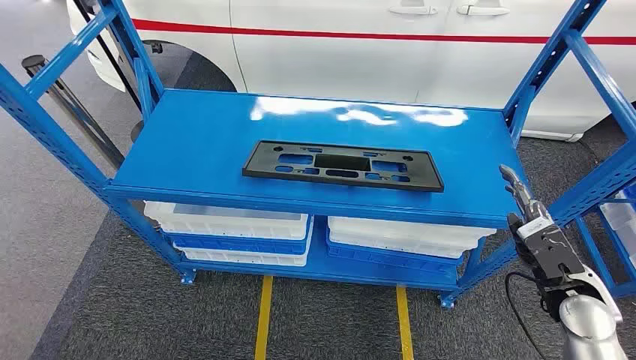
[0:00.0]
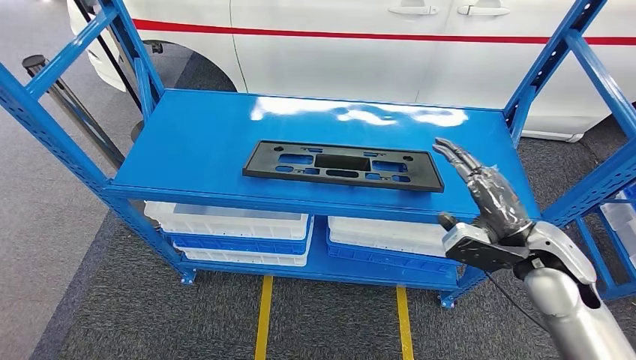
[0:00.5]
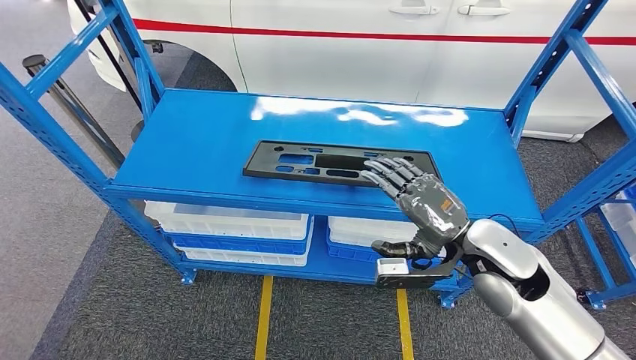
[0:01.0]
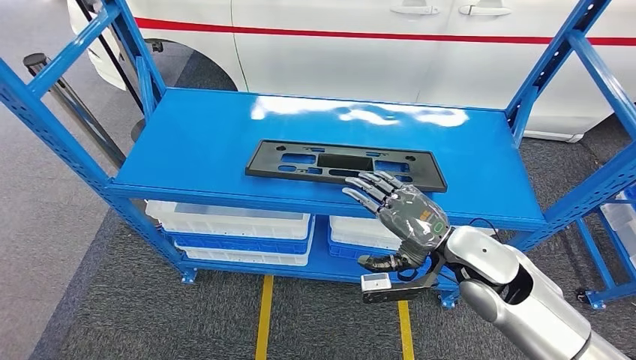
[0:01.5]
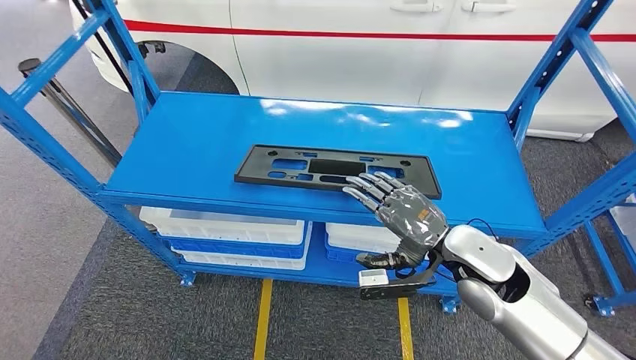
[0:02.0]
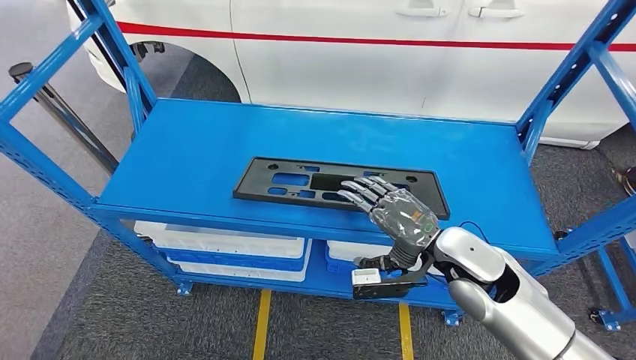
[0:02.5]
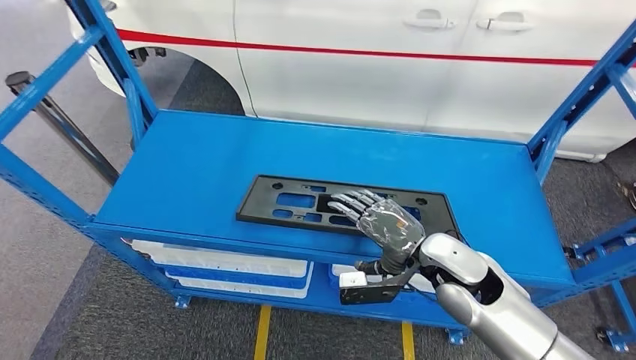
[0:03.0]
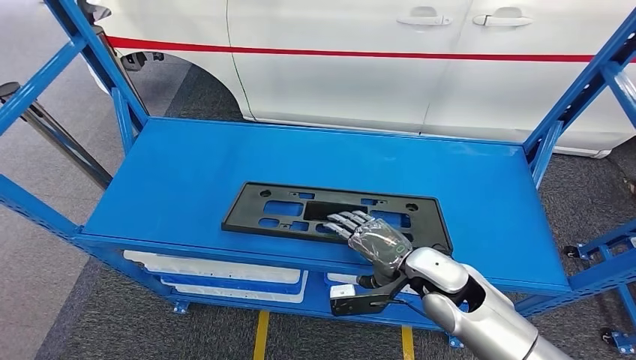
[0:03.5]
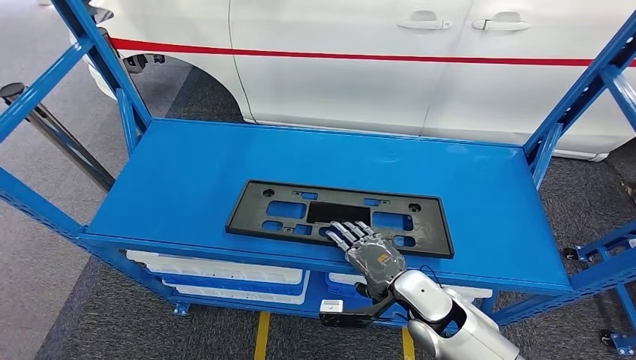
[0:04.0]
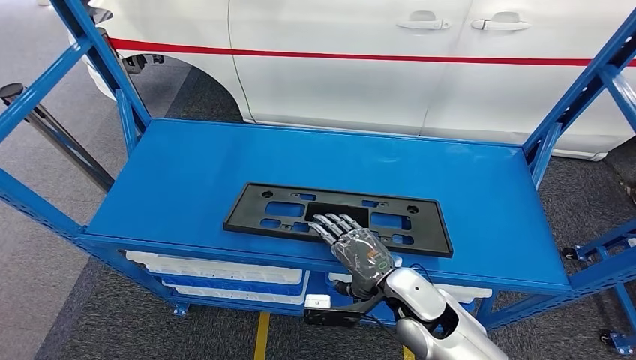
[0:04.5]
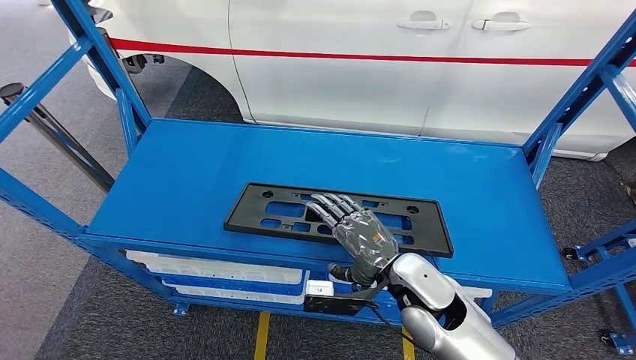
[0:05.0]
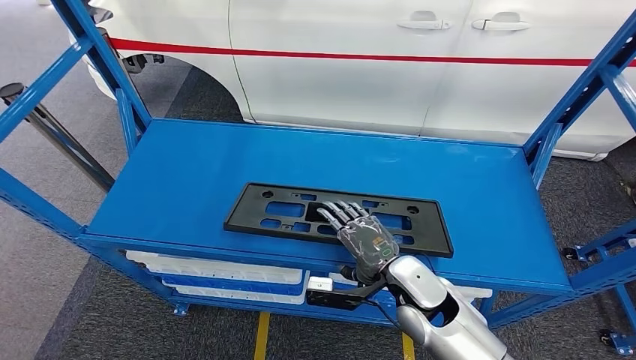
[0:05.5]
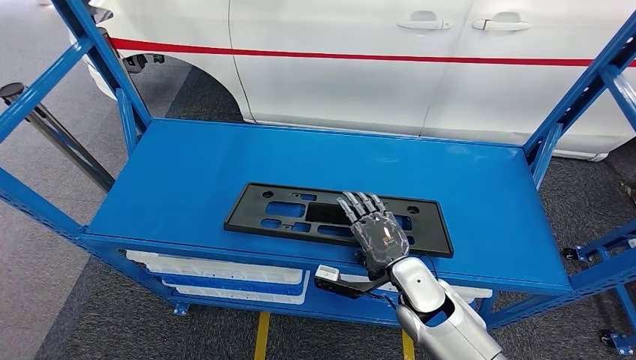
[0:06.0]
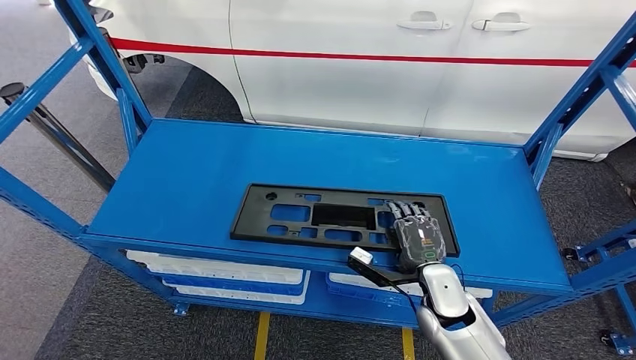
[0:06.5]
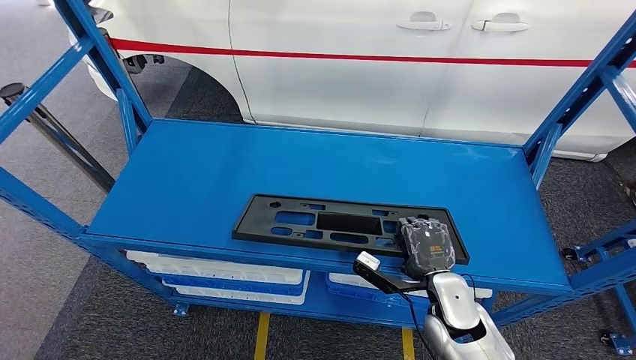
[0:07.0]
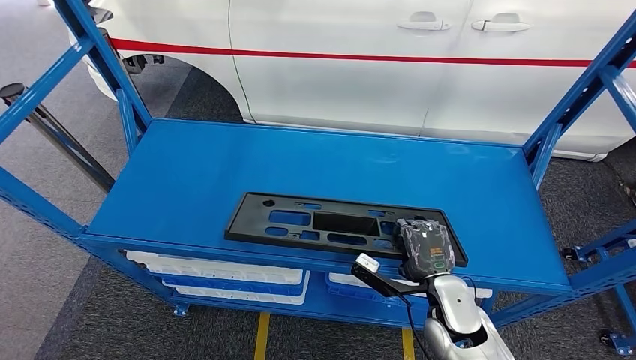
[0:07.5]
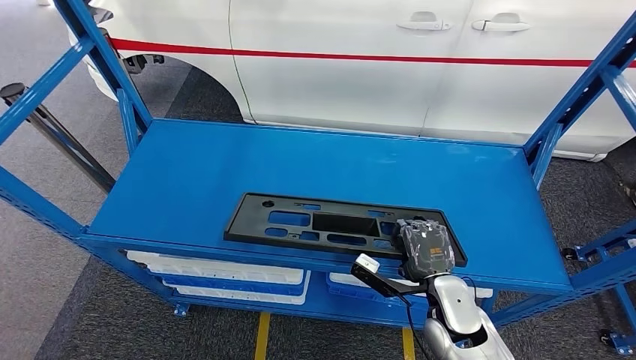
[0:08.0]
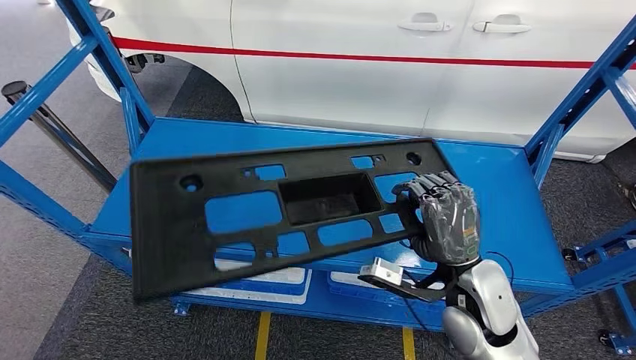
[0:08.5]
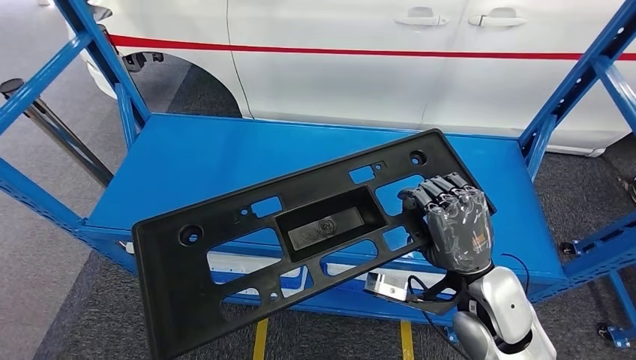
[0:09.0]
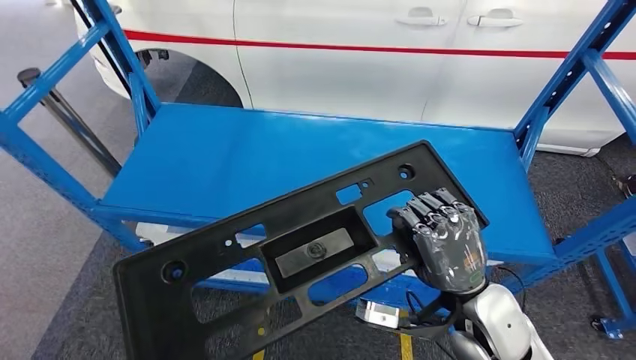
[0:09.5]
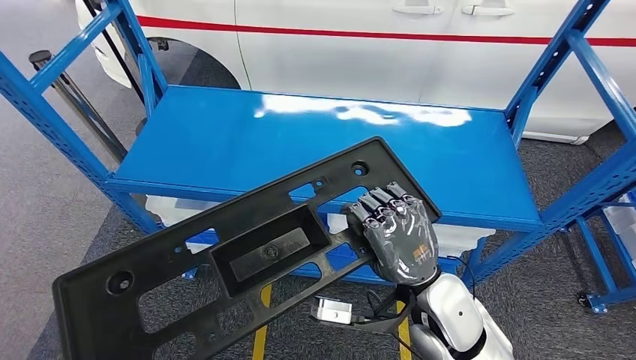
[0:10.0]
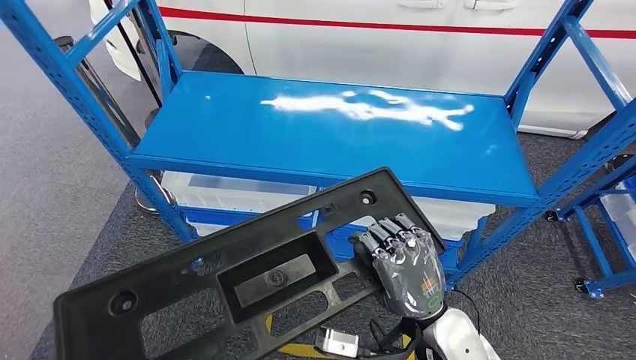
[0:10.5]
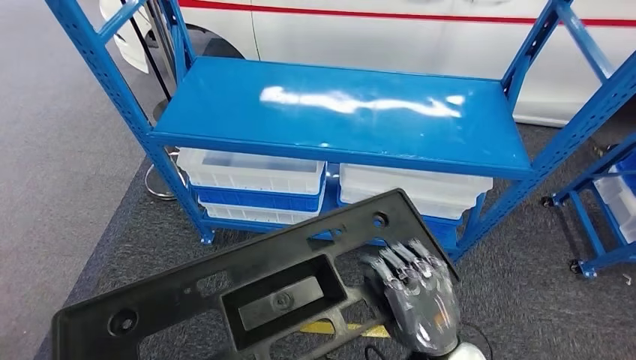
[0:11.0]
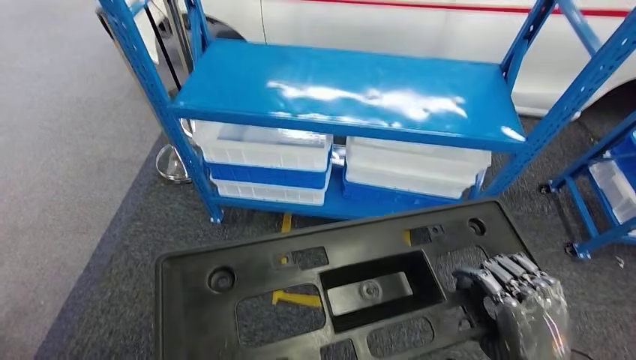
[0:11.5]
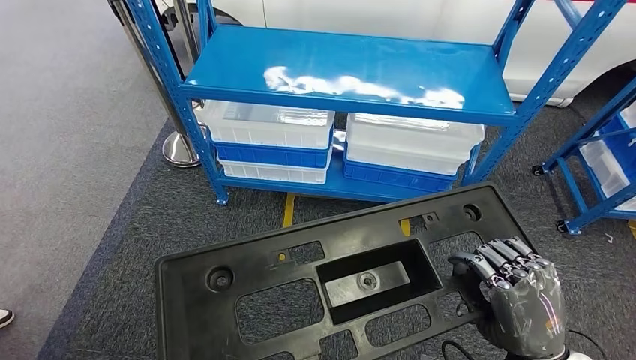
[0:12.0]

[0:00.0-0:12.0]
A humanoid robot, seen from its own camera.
Step, 0:00.0 to 0:08.5: Pick up the large material from the shelf.
0:06.0 to 0:08.0: The right hand shifts by roughly 5 cm.

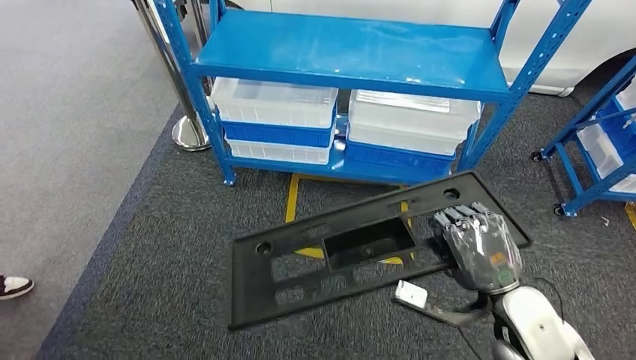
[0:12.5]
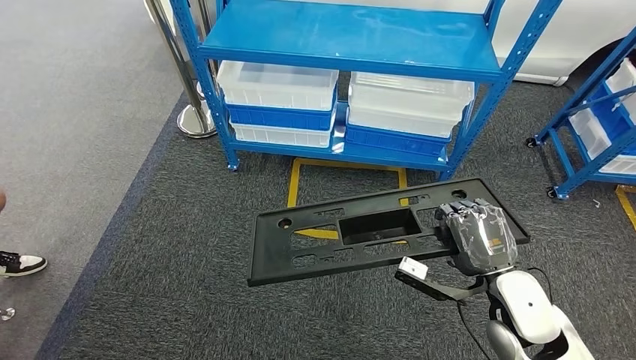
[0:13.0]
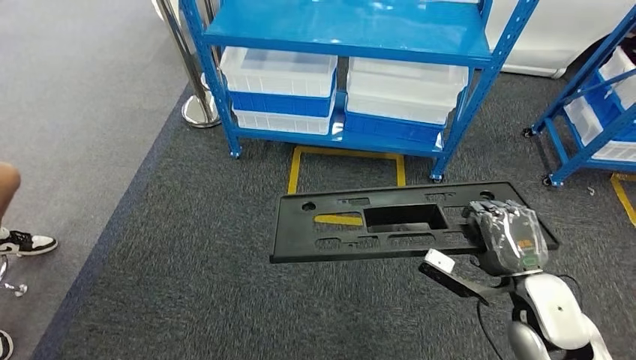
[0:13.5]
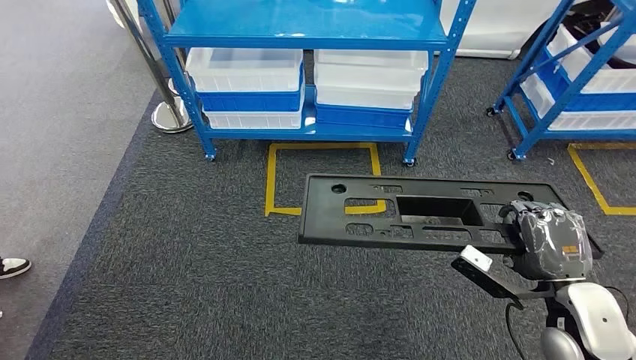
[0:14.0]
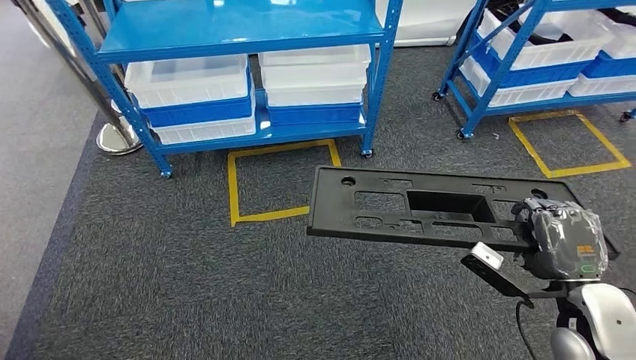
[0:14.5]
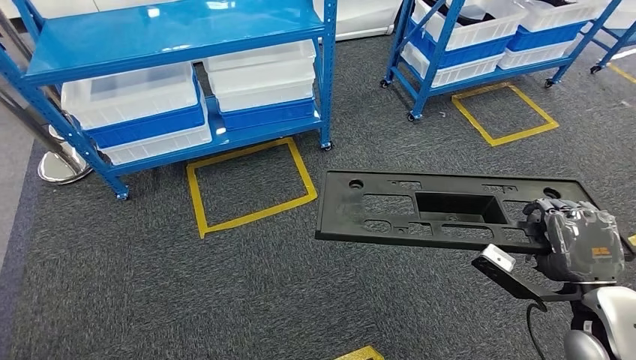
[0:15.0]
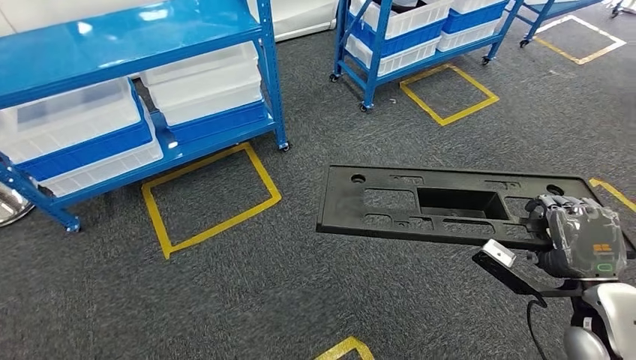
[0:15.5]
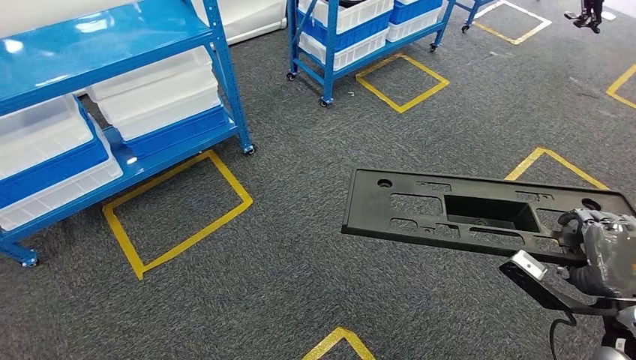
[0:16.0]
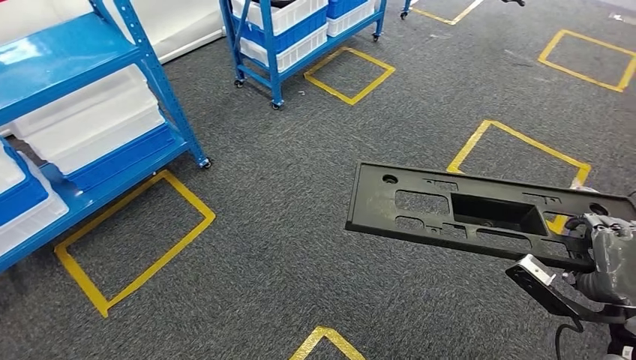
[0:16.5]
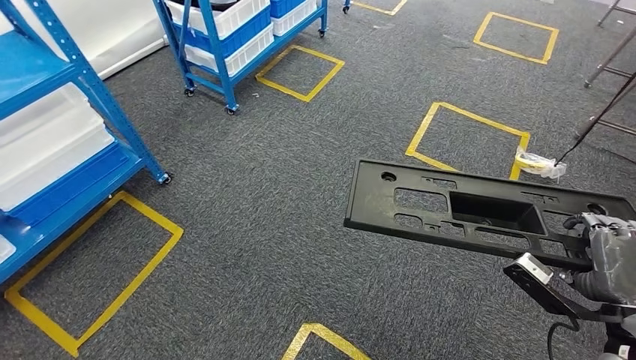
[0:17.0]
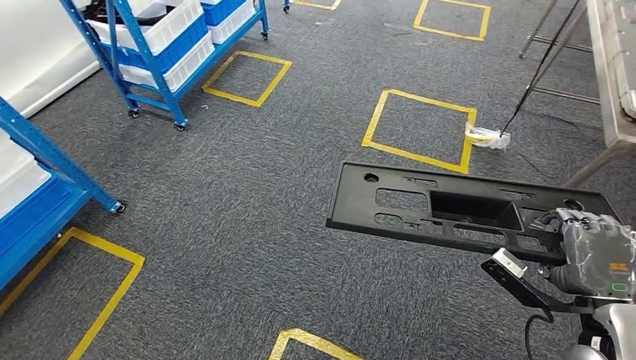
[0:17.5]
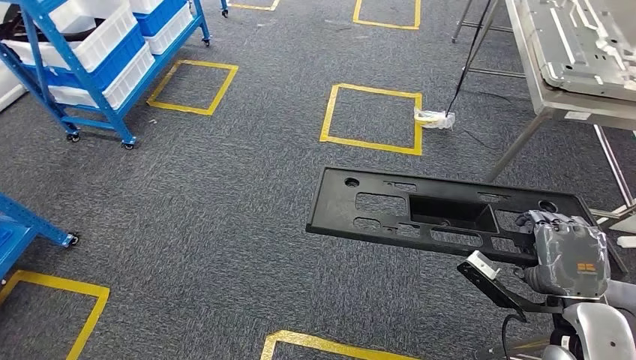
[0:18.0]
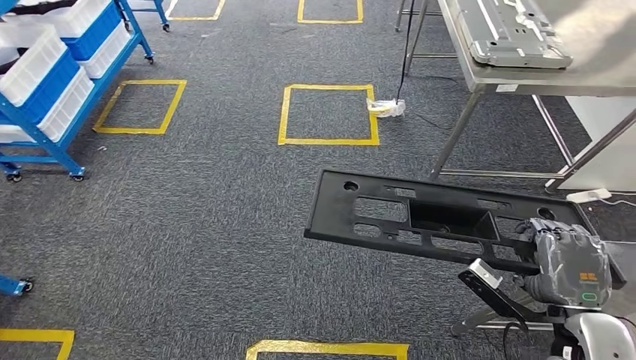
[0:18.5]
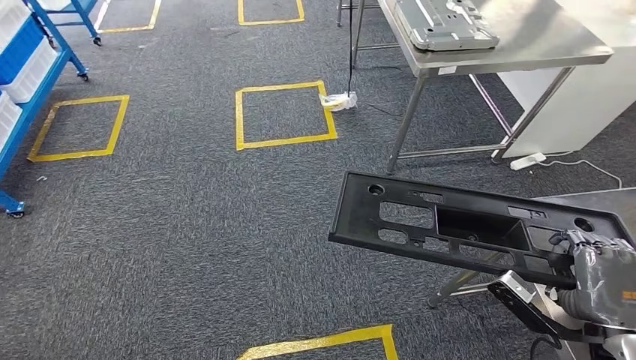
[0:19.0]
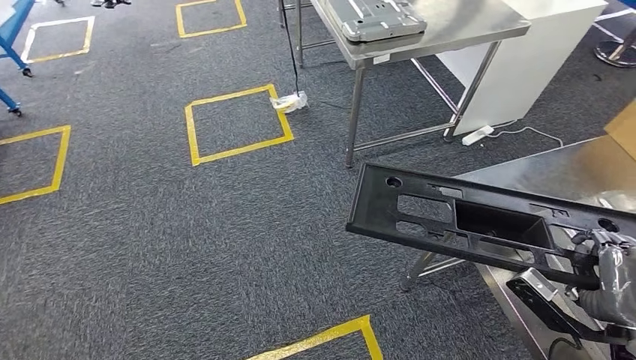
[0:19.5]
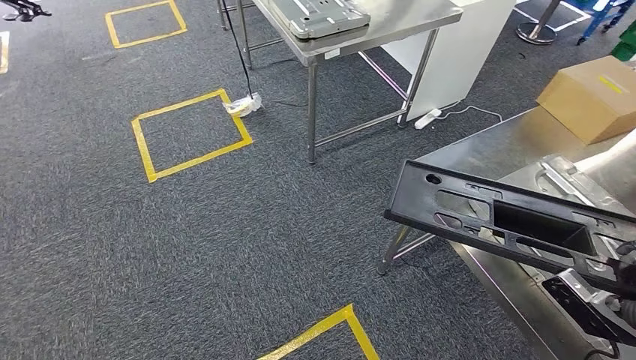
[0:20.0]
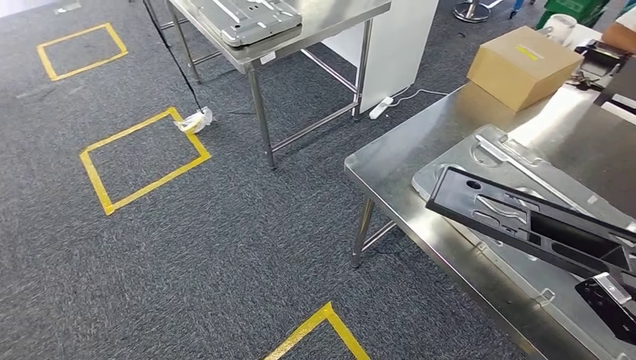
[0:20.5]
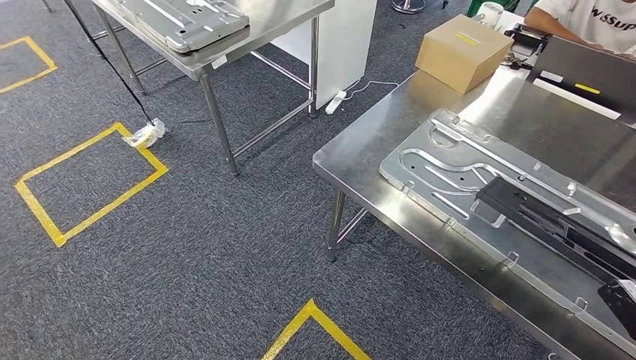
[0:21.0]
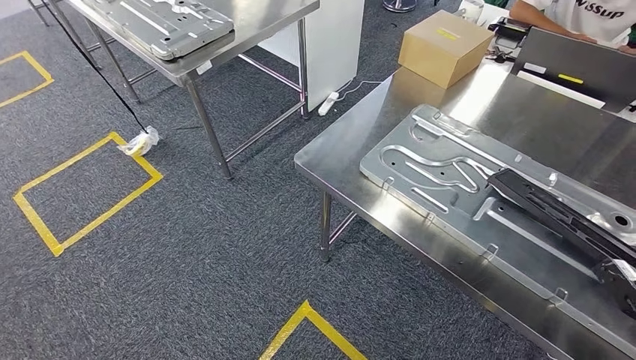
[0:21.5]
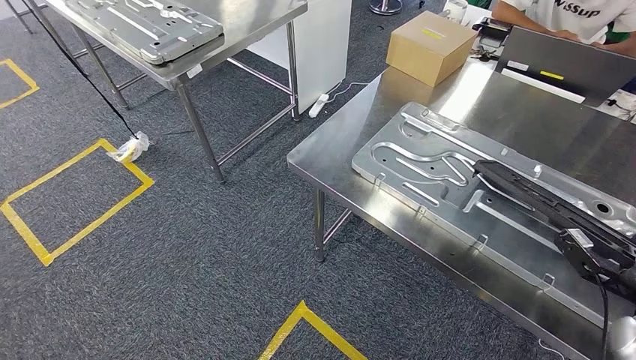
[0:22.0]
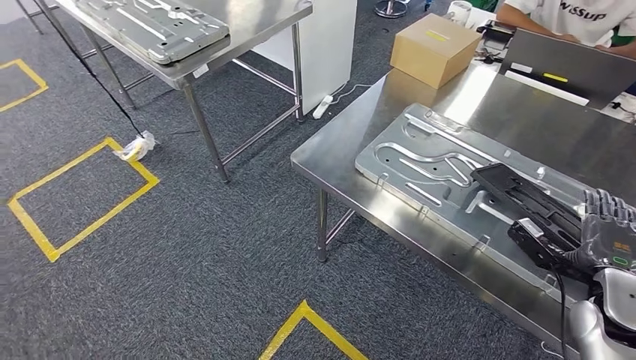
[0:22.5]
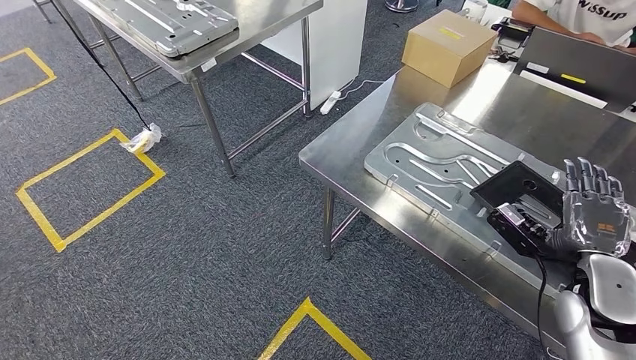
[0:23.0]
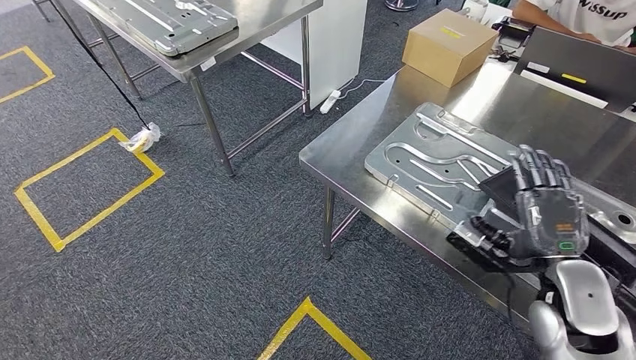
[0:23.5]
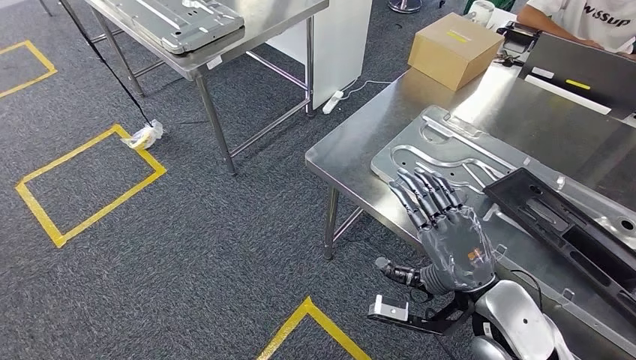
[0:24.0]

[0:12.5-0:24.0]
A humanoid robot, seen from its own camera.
Step, 0:12.5 to 0:20.0: Move the large material to the workbench.
